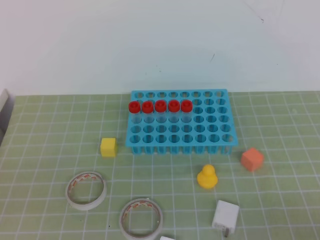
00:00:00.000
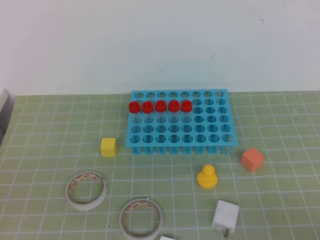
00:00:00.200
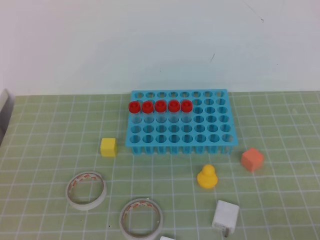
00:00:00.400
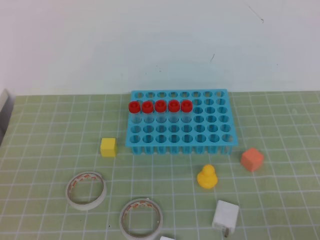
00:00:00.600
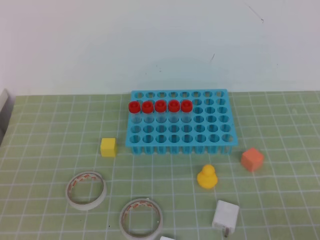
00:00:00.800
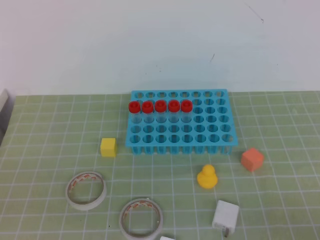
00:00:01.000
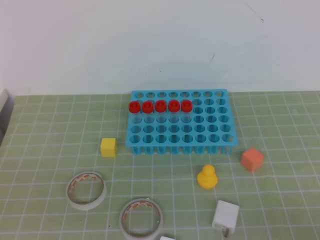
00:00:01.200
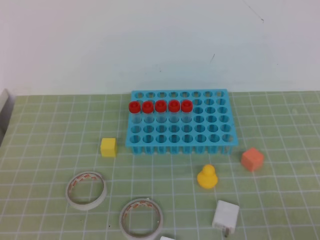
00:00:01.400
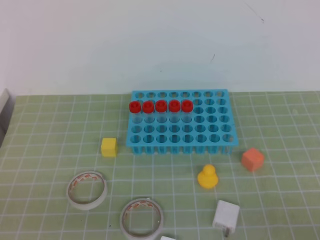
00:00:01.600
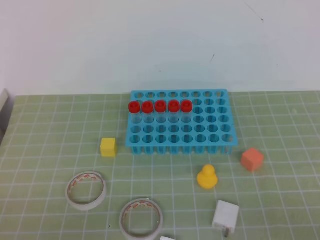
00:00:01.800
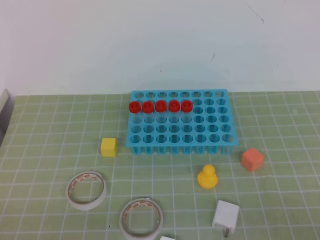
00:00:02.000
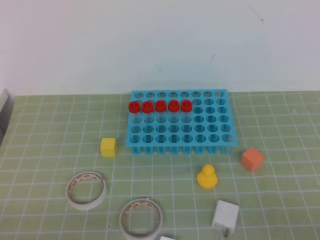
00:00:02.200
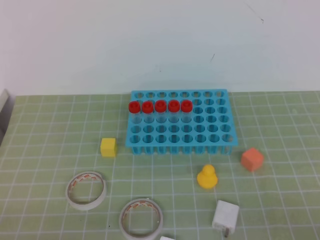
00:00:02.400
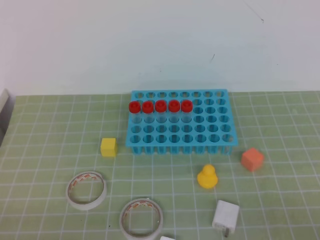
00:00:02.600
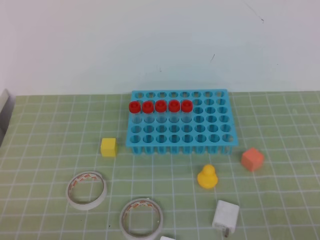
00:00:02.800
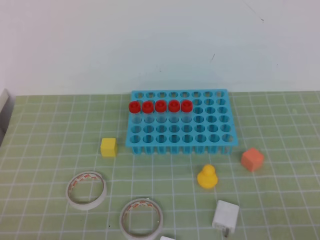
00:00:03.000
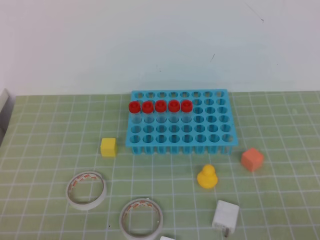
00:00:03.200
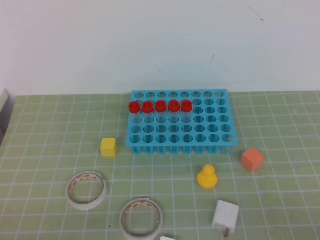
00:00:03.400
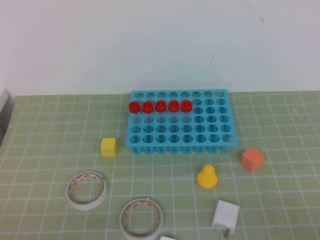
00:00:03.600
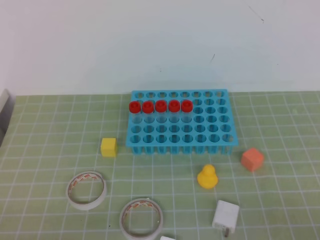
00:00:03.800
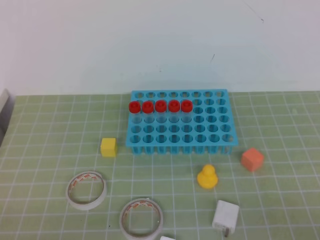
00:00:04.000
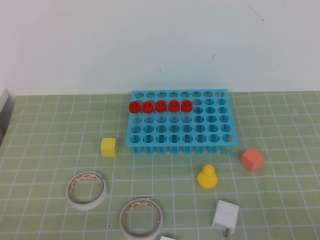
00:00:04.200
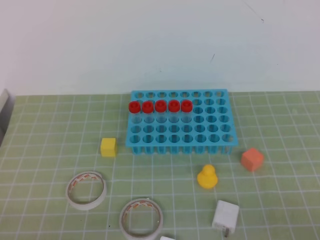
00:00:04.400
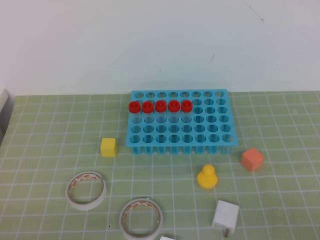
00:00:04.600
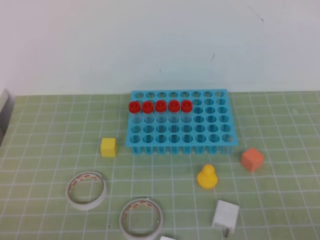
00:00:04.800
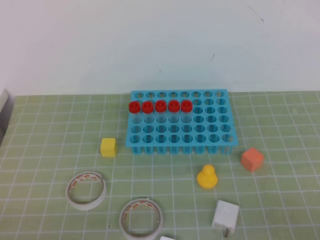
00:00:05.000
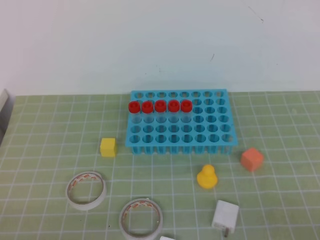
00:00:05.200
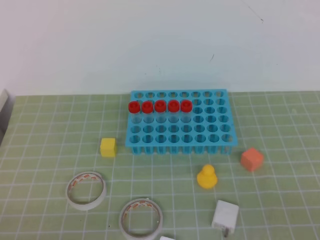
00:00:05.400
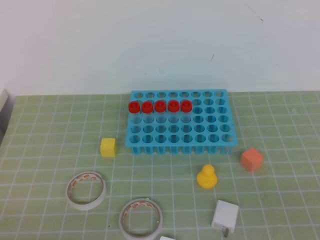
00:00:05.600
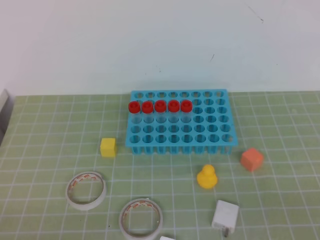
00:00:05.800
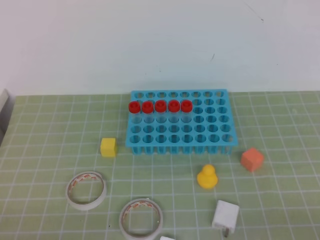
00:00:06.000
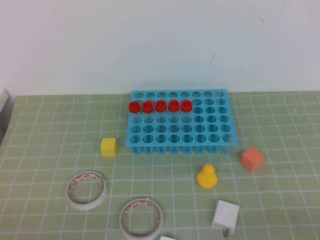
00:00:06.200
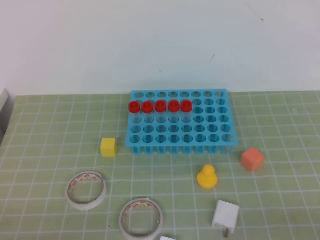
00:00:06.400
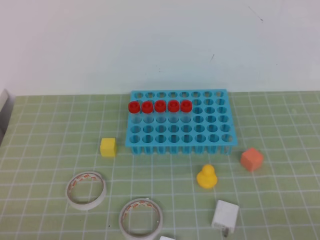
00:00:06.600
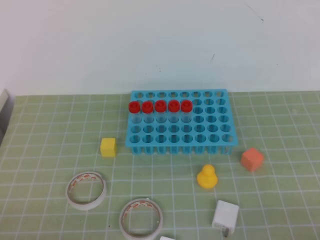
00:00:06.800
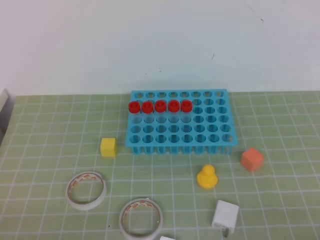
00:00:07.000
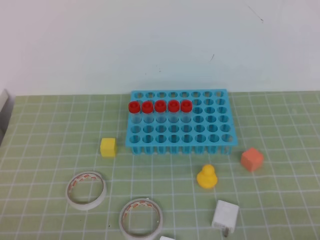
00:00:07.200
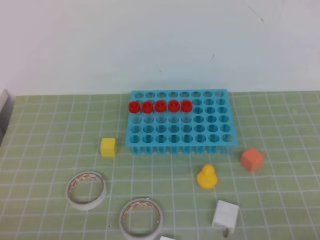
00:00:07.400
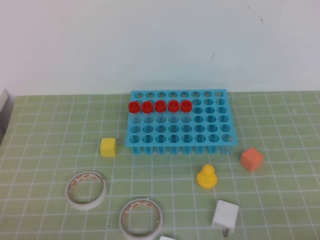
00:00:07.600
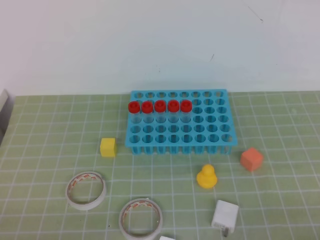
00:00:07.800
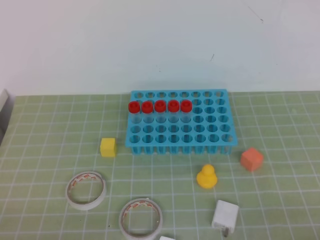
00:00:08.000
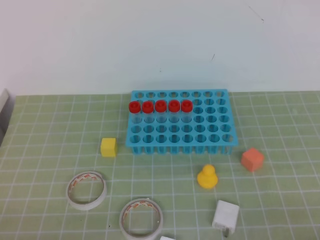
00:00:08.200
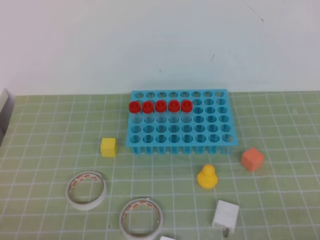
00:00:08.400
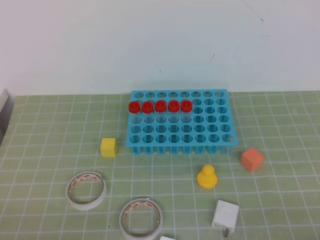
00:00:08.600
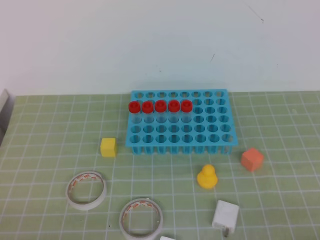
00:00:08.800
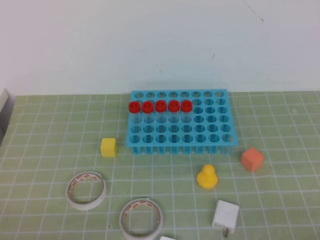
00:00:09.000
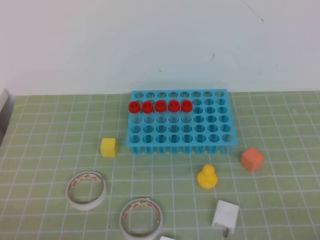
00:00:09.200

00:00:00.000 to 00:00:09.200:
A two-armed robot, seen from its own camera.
00:00:03.000 to 00:00:04.600: The two grippers keep their place.
00:00:07.600 to 00:00:09.200: Both grippers stay about where they are.
